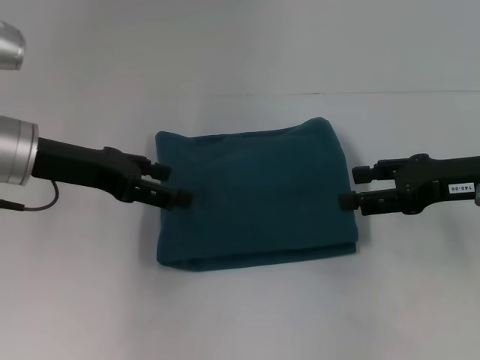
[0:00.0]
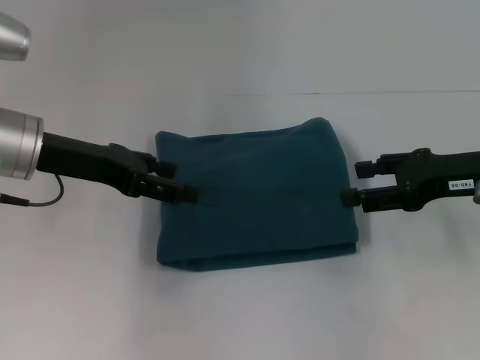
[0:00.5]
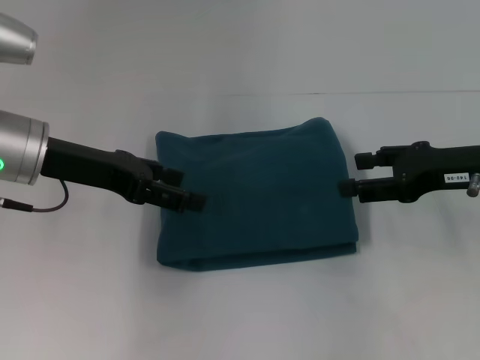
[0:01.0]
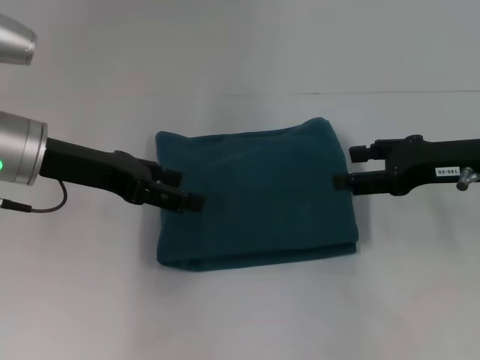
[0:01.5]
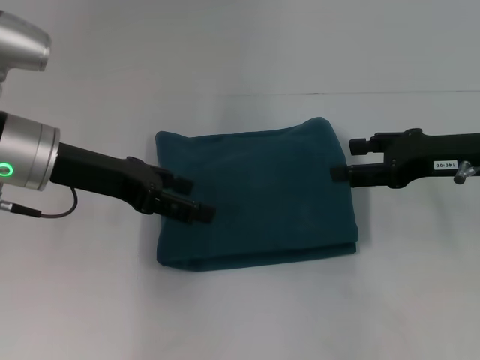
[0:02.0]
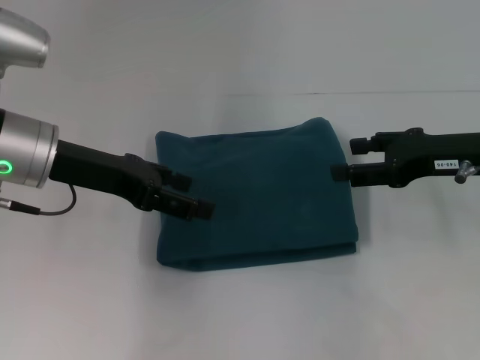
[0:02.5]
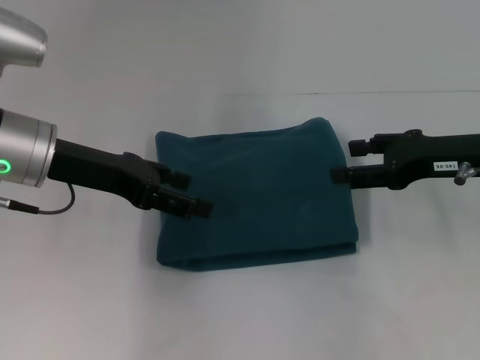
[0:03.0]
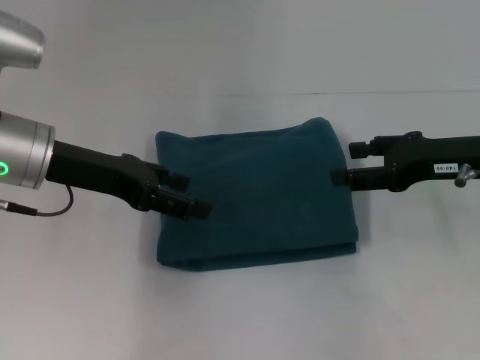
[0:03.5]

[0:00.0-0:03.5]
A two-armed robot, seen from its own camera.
0:00.0 to 0:02.0: The grippers make only small movements.
0:02.0 to 0:03.5: Neither gripper changes place.

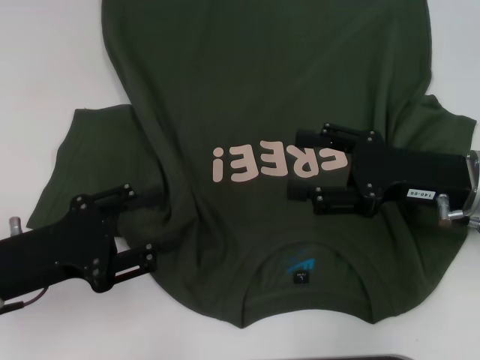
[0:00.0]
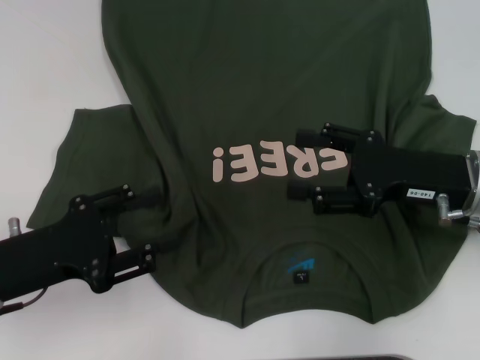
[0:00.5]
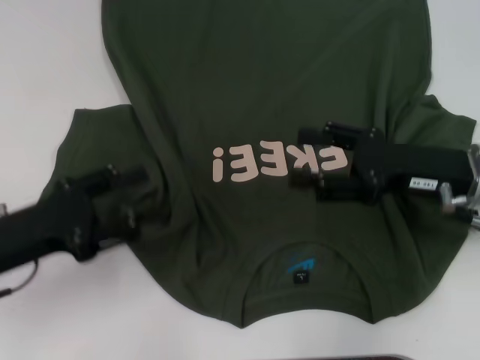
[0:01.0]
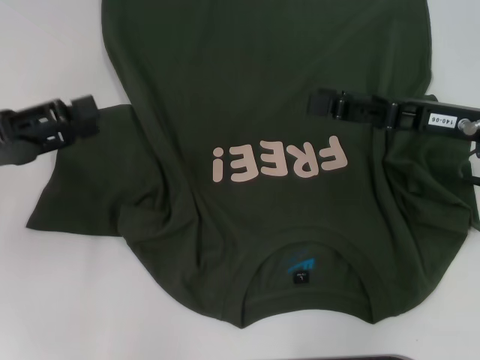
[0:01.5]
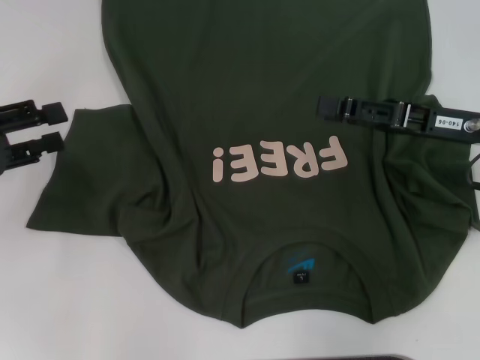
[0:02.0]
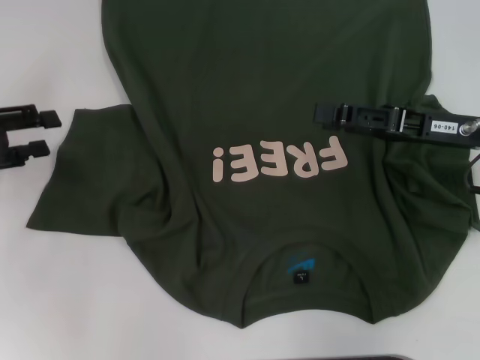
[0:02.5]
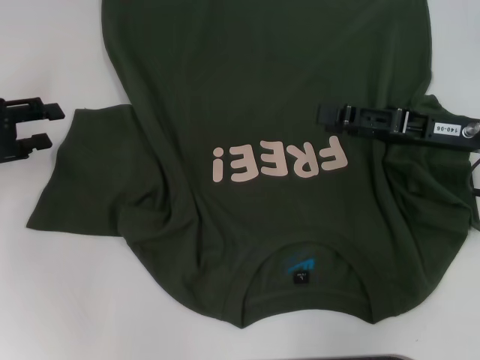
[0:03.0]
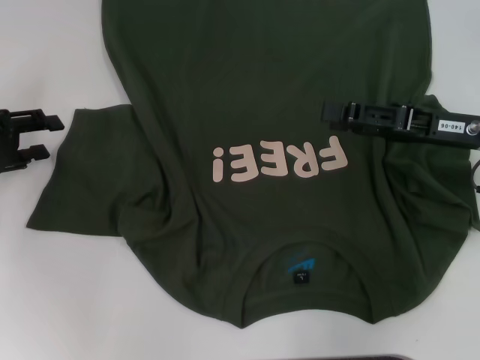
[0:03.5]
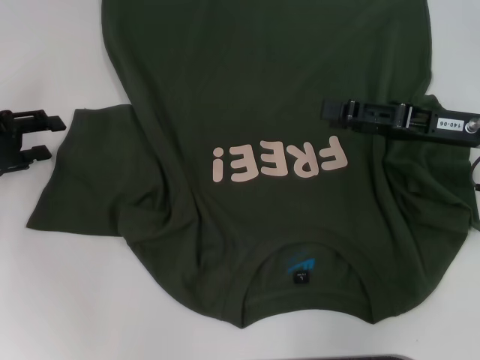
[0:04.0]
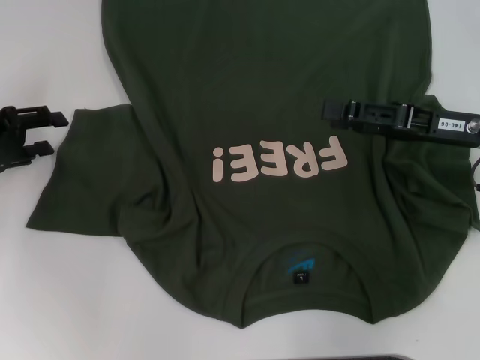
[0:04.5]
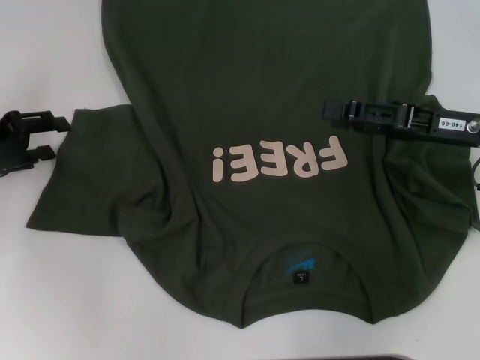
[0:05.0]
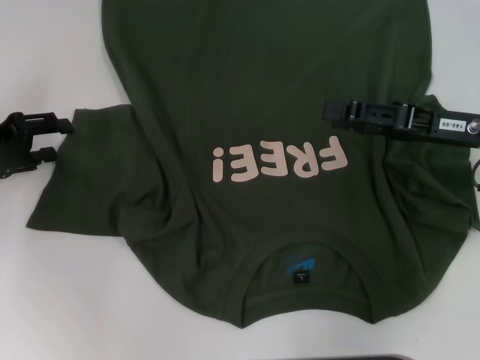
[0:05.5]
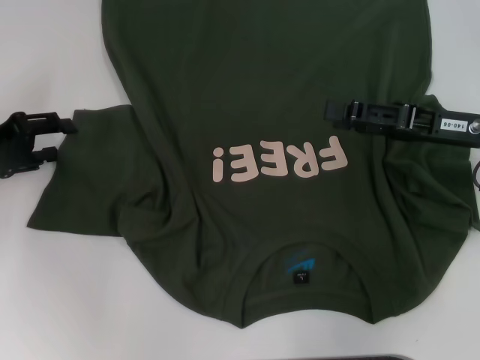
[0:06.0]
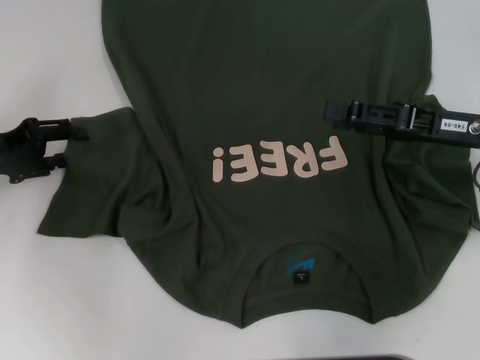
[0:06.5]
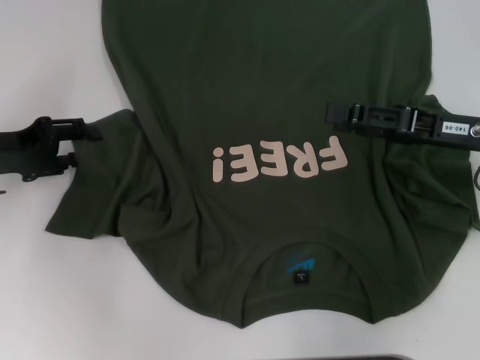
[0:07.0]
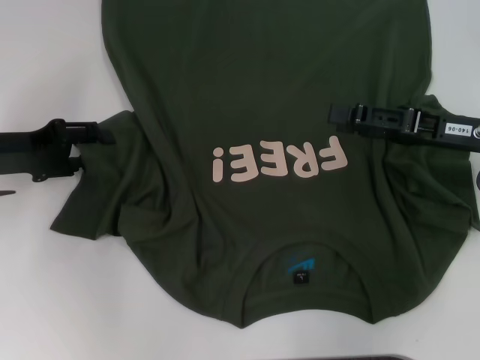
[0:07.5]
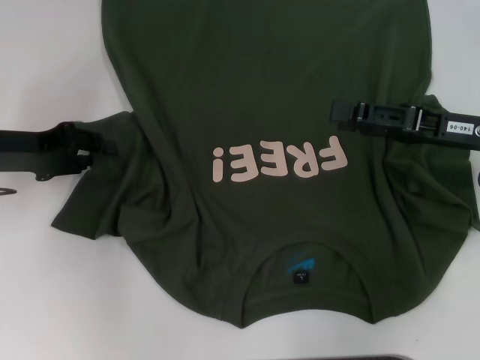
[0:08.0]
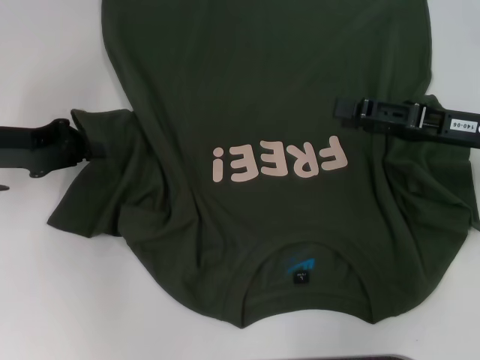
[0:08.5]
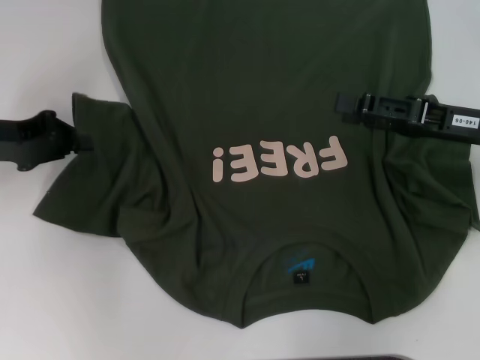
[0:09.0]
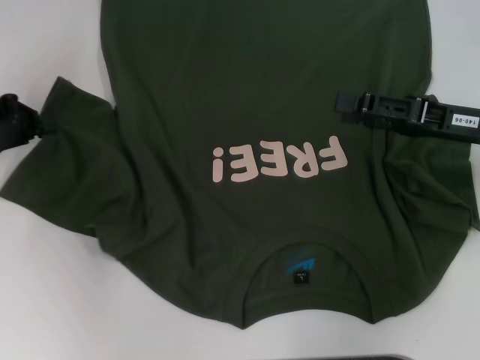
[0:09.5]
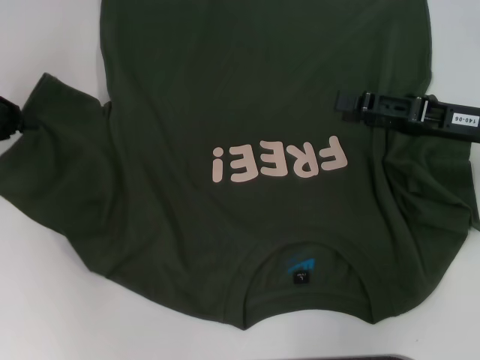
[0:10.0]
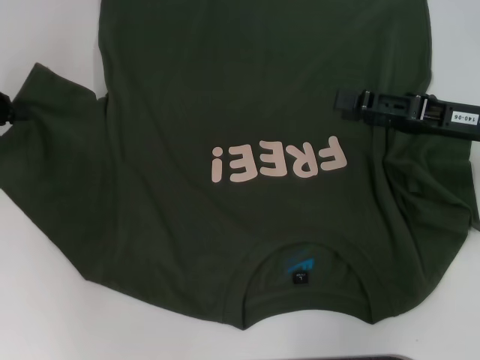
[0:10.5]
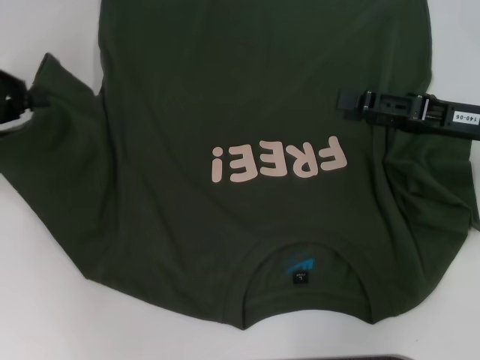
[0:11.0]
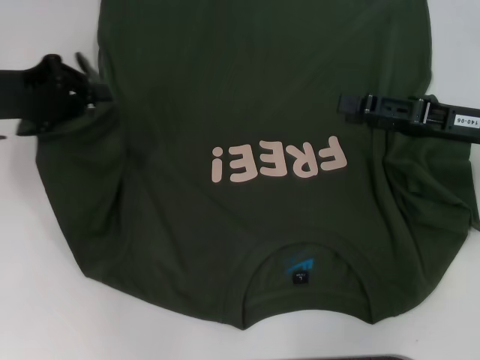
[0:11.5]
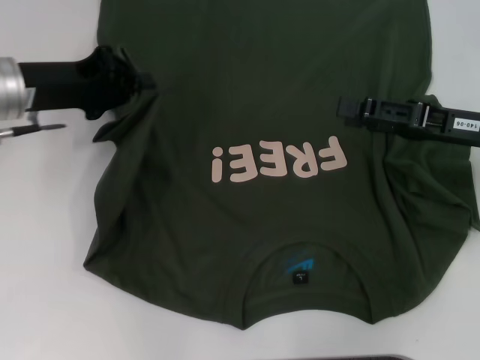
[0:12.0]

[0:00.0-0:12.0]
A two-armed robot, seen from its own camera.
0:00.0 to 0:02.0: The left gripper is displaced to the left, forward and upward by approximately 10 cm.
0:02.0 to 0:04.0: The left gripper moves about 5 cm.
0:04.0 to 0:06.0: Neither gripper changes place.
0:06.0 to 0:08.0: The grippers stay close to where they were, moving slightly.
0:08.0 to 0:10.0: The left gripper travels to the left by roughly 5 cm, and closes its fingers.
0:10.0 to 0:12.0: The left gripper shifts approximately 10 cm to the right.

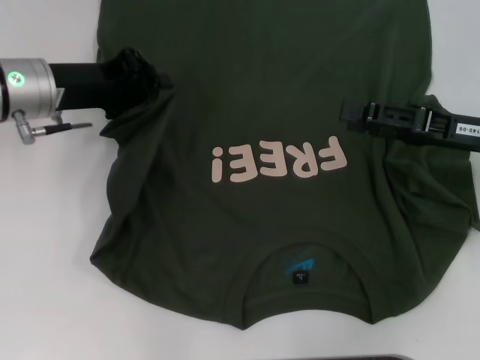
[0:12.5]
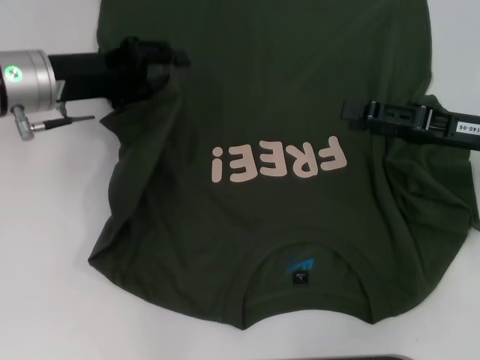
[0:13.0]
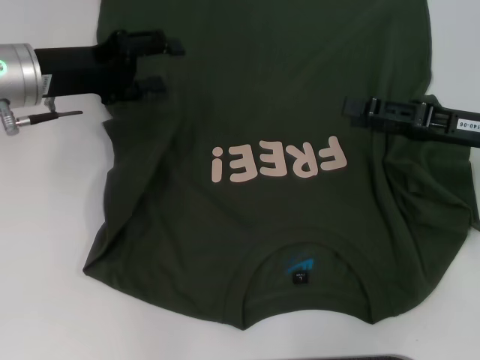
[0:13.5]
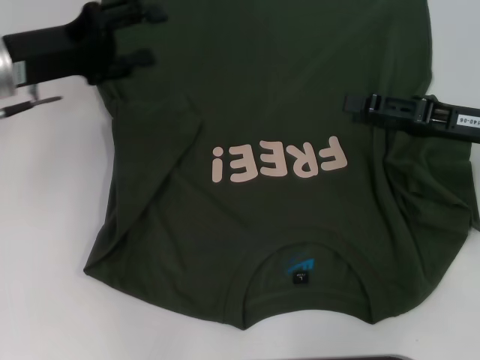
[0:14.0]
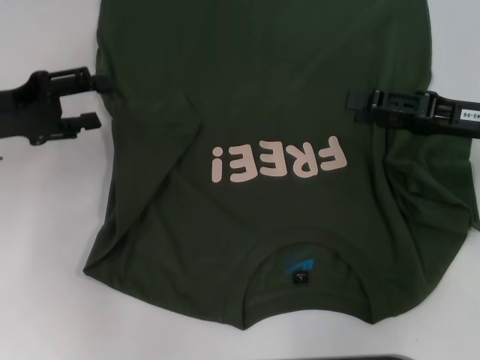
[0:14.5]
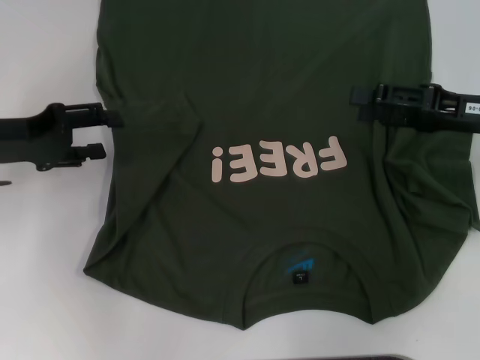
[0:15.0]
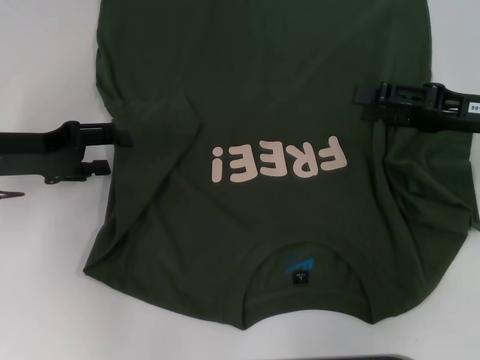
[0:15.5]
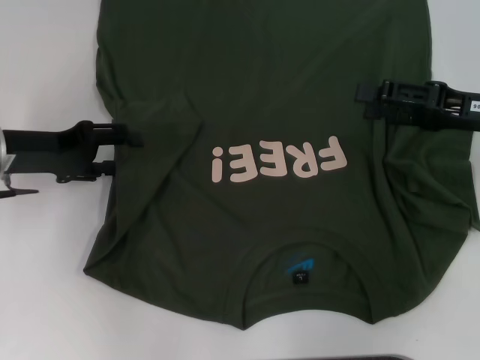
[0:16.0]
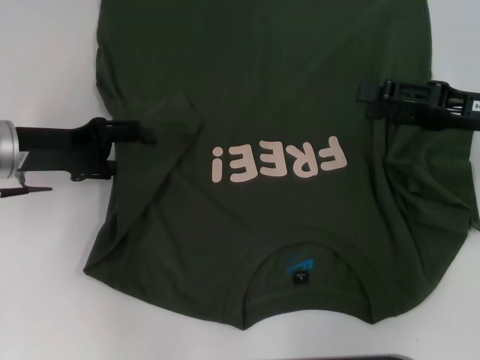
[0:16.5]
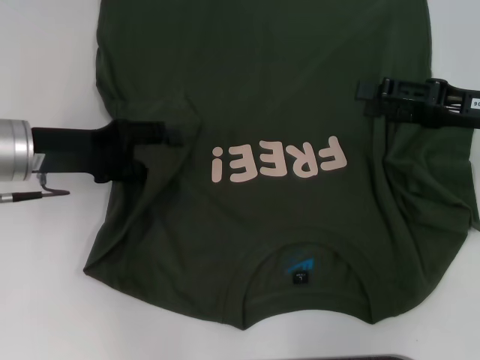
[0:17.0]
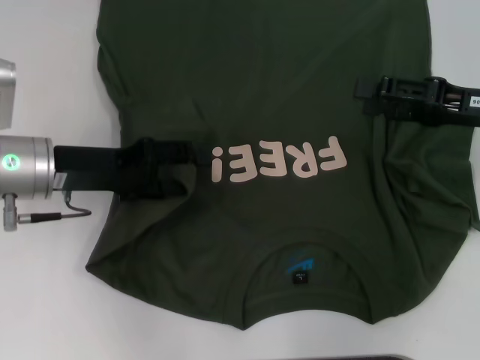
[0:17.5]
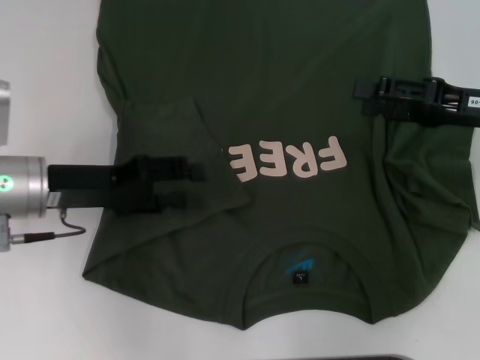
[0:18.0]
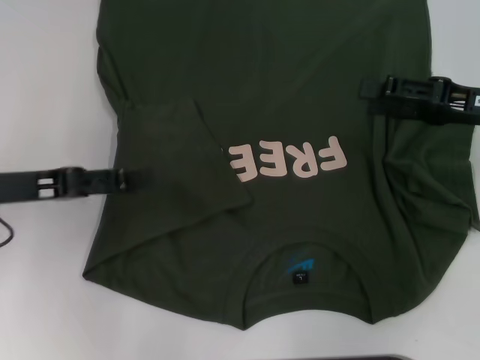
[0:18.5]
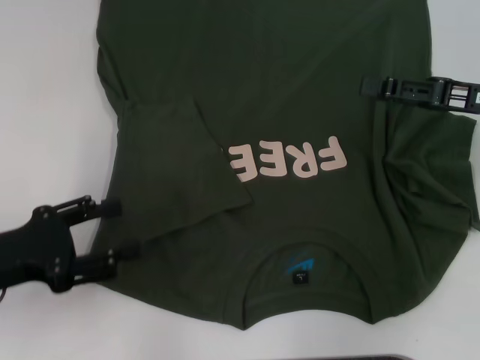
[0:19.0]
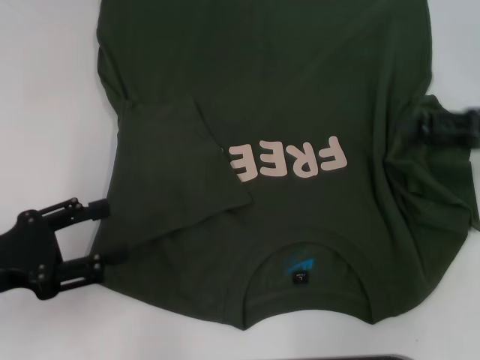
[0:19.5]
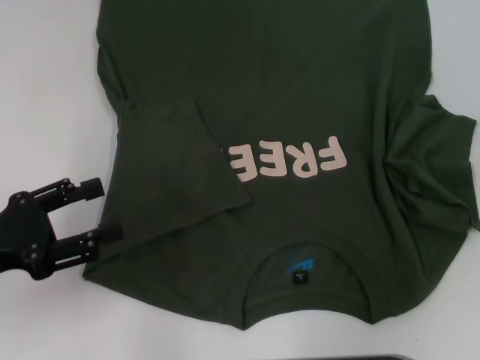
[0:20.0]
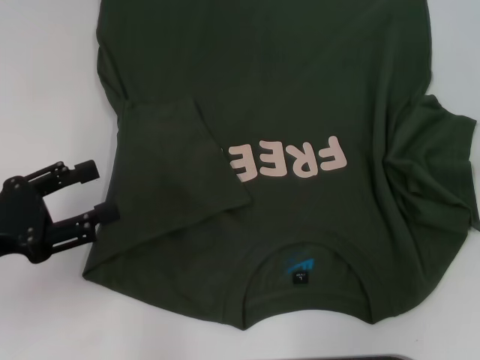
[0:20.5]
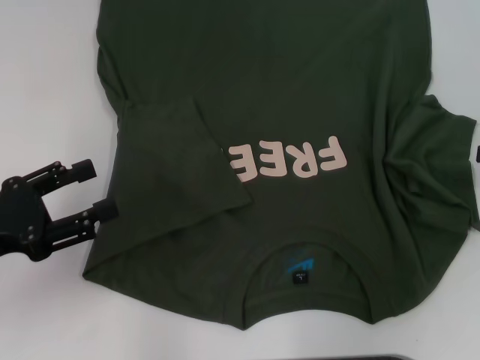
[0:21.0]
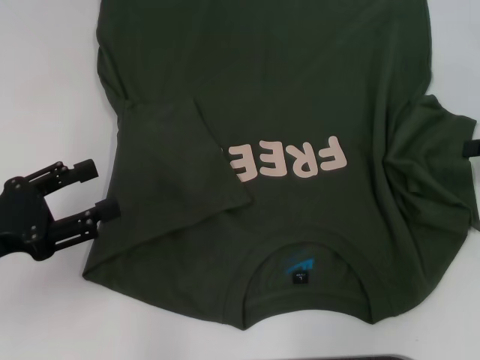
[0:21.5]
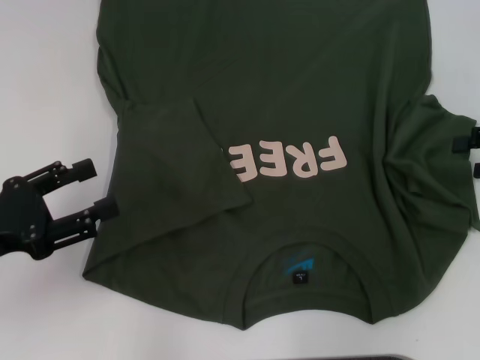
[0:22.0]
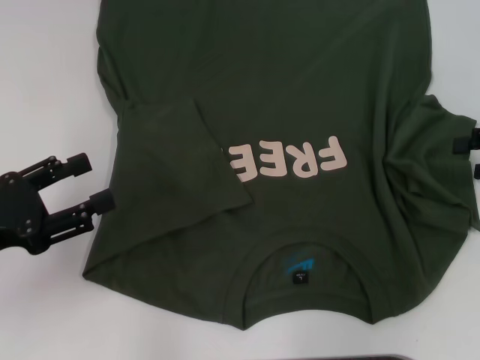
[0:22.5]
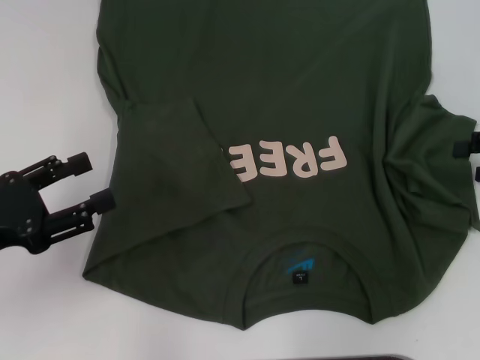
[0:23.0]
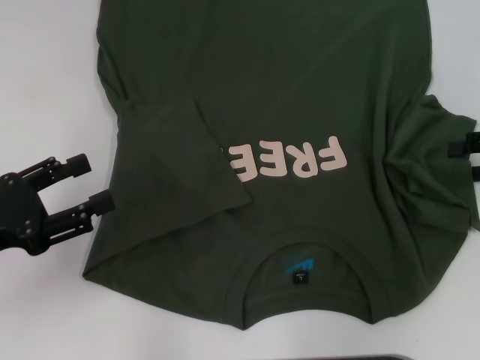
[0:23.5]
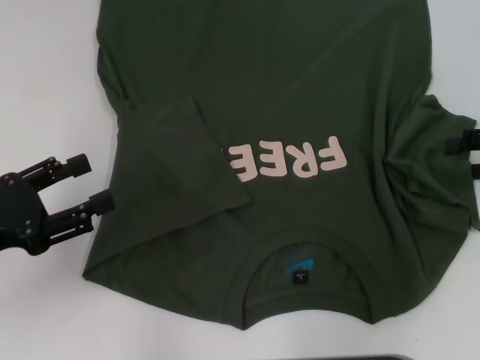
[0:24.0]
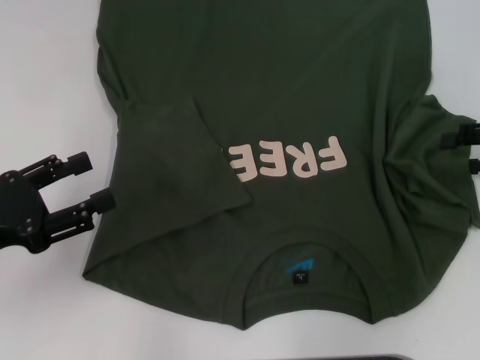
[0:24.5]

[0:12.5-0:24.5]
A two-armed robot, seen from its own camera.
Step, 0:12.5 to 0:19.0: Fold the bottom left sleeve with your left hand.
0:12.5 to 0:14.5: The left gripper goes some 10 cm to the left, and opens its fingers.
0:14.5 to 0:16.5: The left gripper ends up some 5 cm from where it was.
0:16.5 to 0:18.5: The left gripper is displaced backward by some 5 cm.
0:18.5 to 0:20.5: The right gripper travels to the right by about 10 cm, while the left gripper moves backward, approximately 5 cm.
0:20.5 to 0:22.5: The grippers move only a little.
0:22.5 to 0:24.5: The two grippers keep their place.
